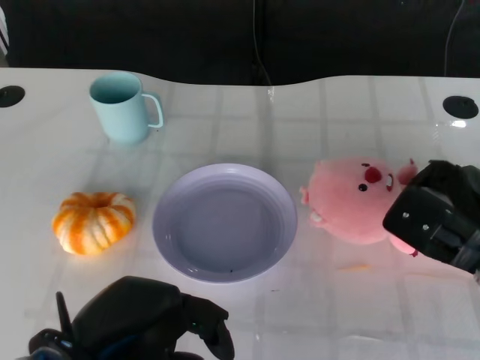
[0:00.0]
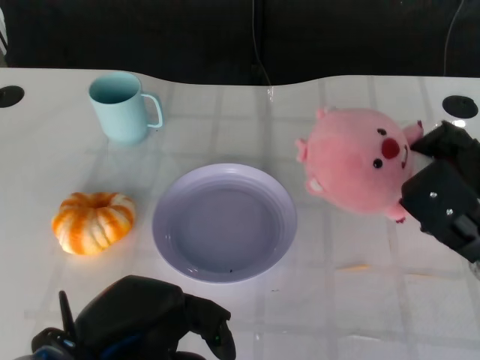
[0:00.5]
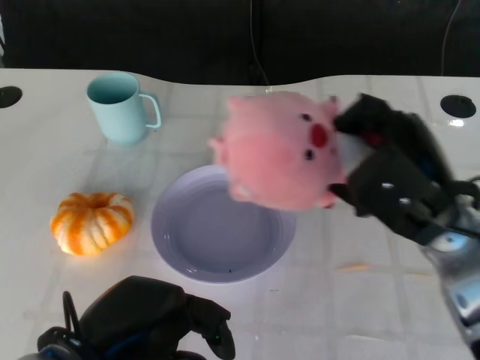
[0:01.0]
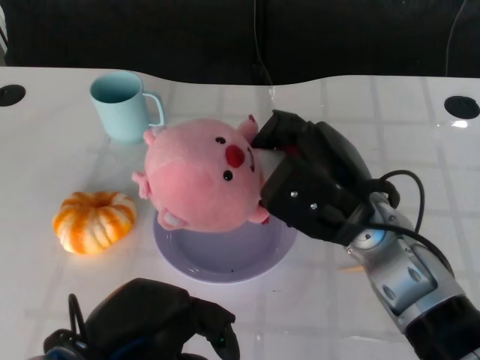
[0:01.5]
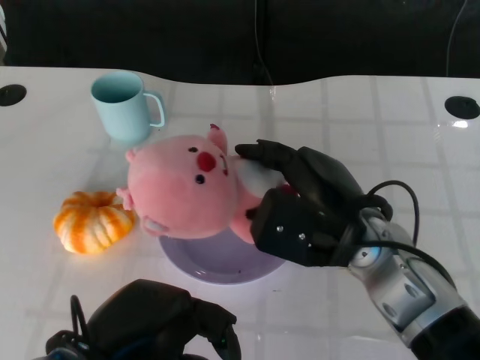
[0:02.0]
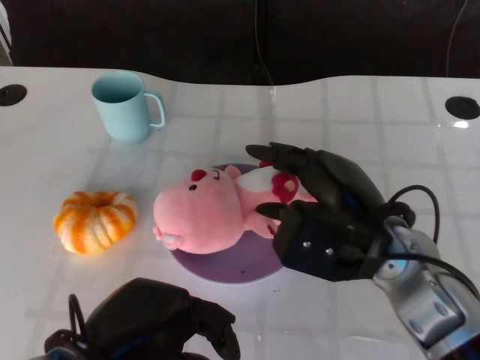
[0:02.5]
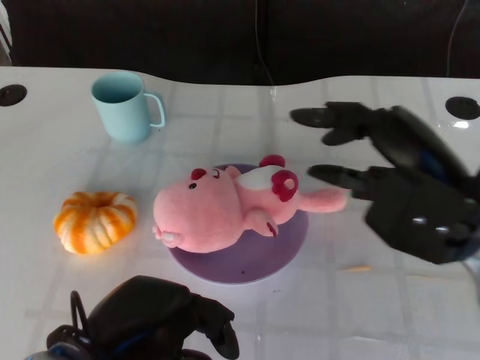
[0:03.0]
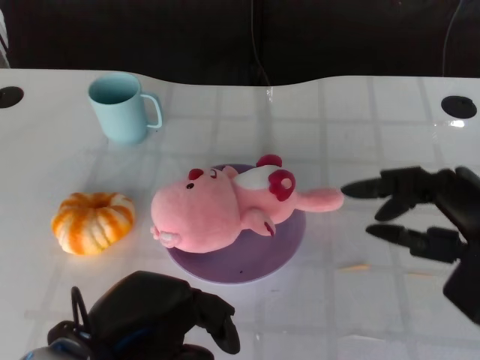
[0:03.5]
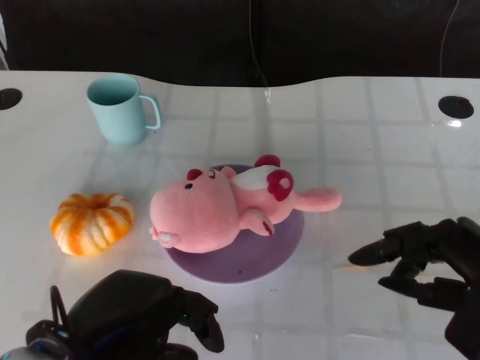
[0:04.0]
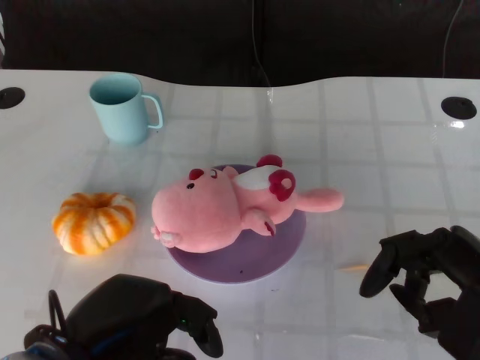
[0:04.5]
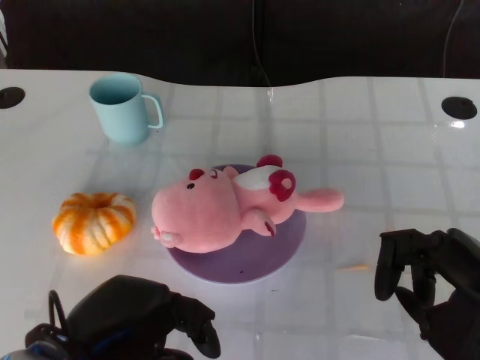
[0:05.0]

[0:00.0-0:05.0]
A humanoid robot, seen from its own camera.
Task of the whole recording: Pick up the doll on the other side of the plate and place it into the plate.
Step, 0:01.0 to 0:02.5: Place the pink doll into the plate with the right gripper.
0:00.0 to 0:02.5: The right hand goes about 10 cm to the left.
0:02.5 to 0:05.0: The right hand shifts about 15 cm to the right and backward.
